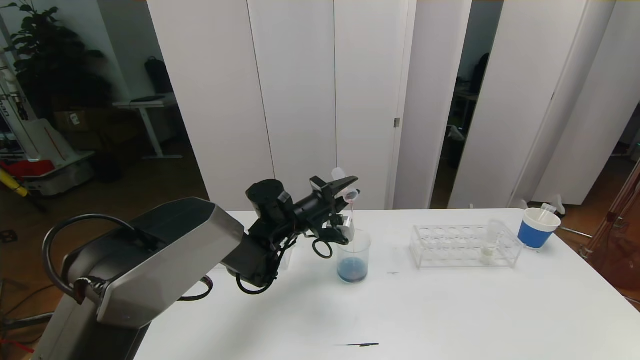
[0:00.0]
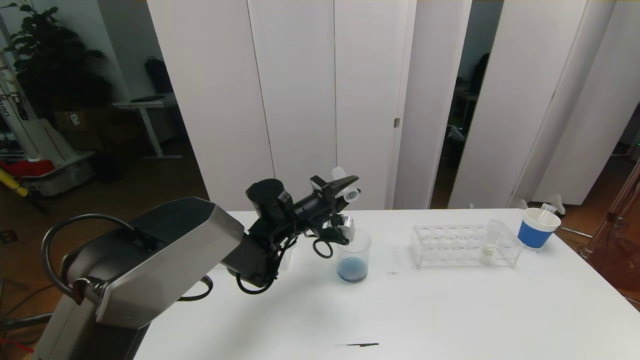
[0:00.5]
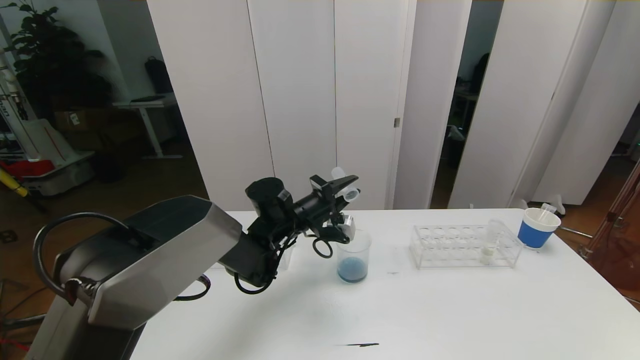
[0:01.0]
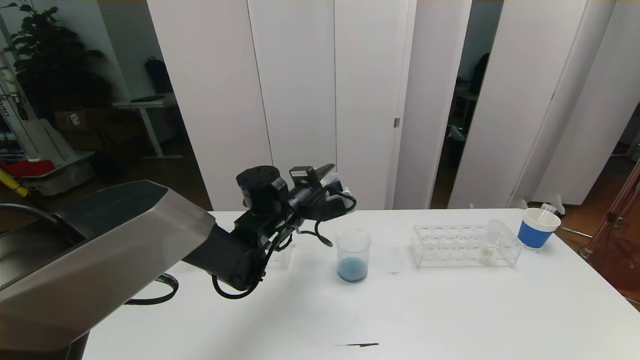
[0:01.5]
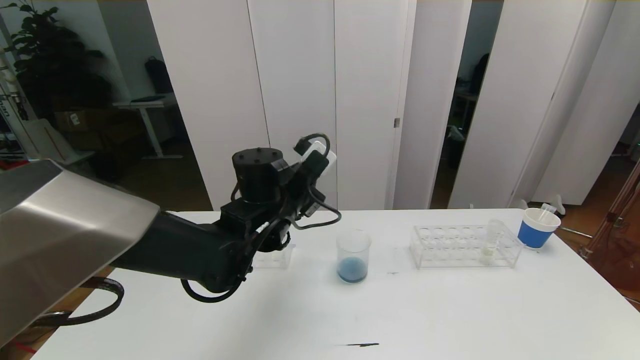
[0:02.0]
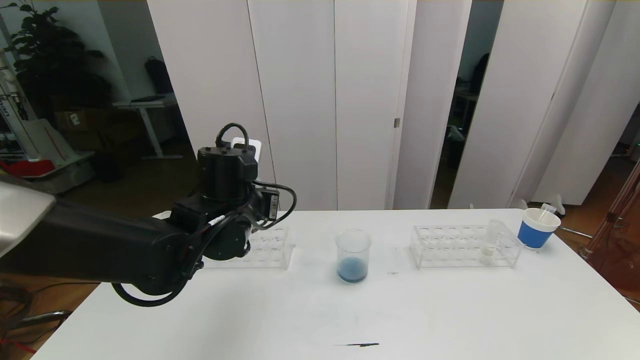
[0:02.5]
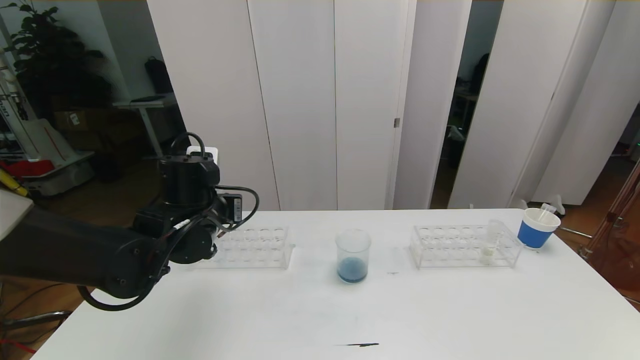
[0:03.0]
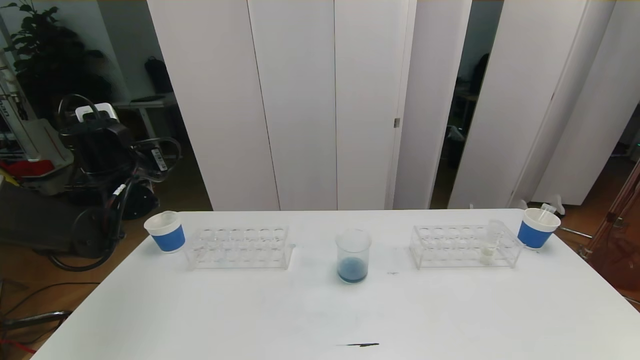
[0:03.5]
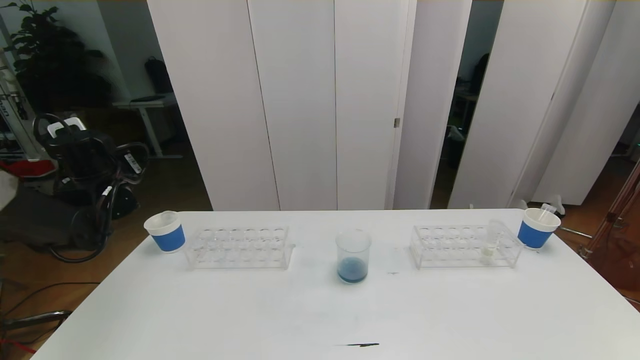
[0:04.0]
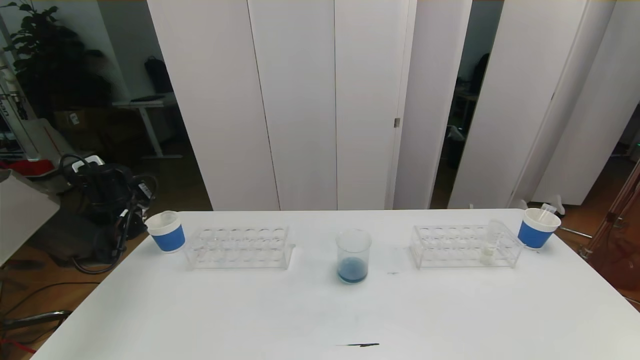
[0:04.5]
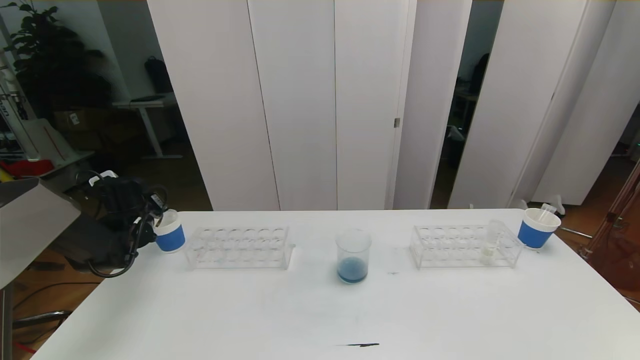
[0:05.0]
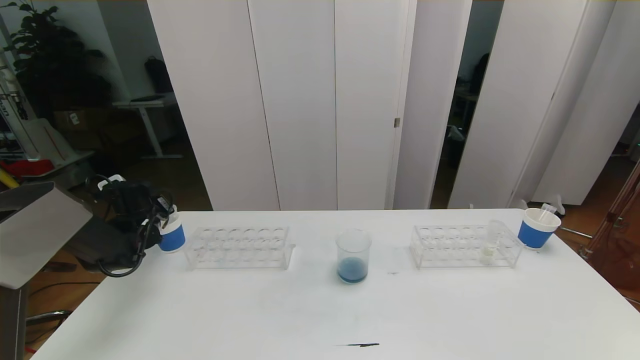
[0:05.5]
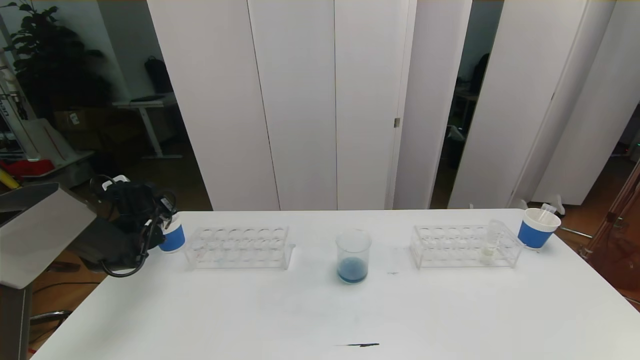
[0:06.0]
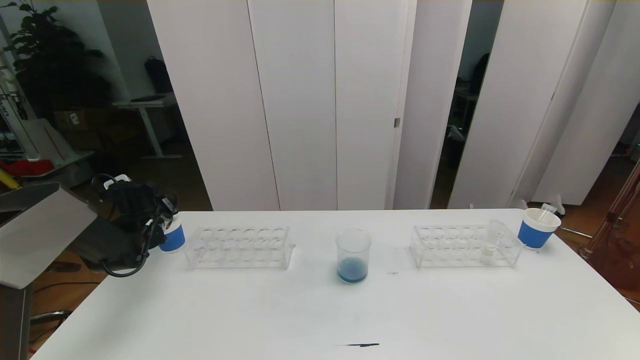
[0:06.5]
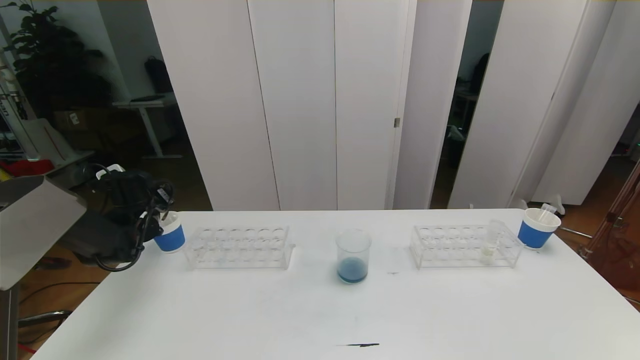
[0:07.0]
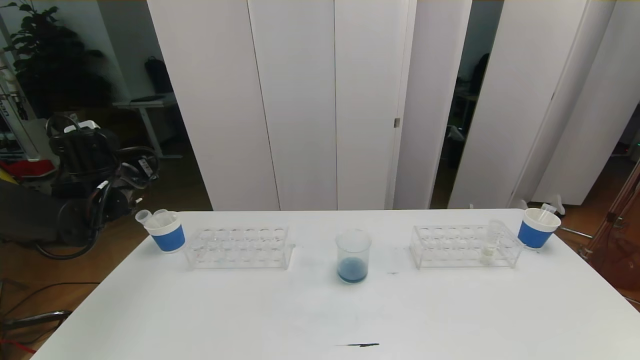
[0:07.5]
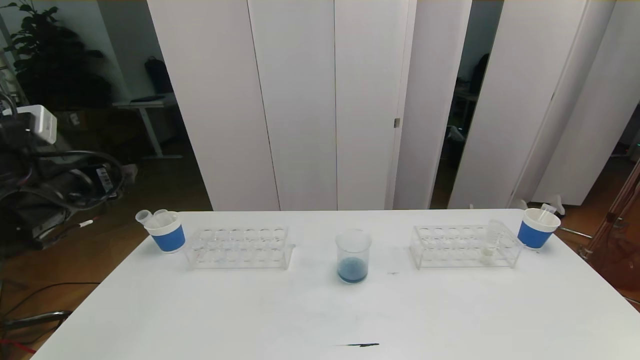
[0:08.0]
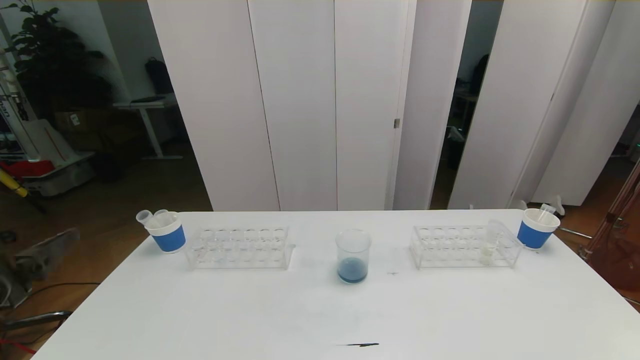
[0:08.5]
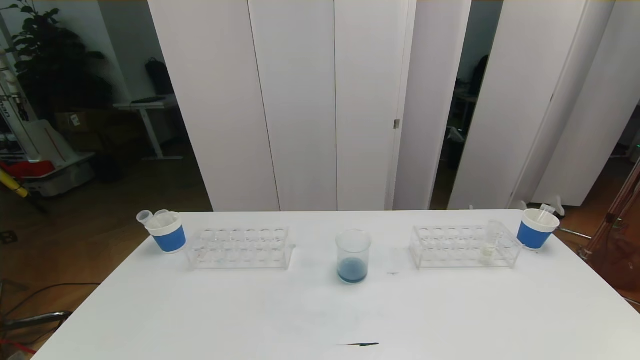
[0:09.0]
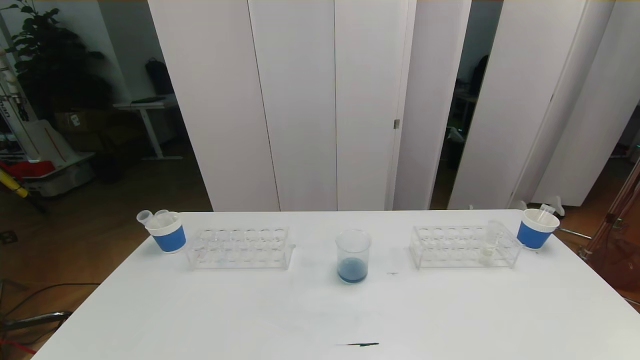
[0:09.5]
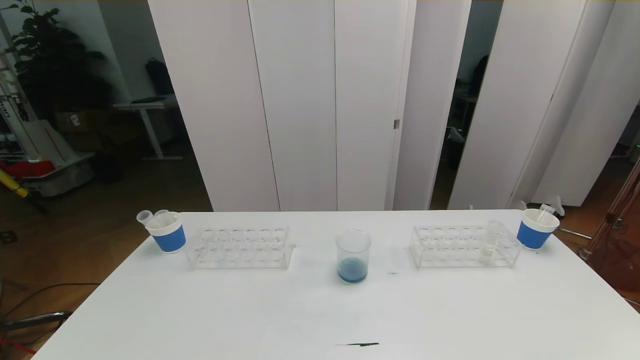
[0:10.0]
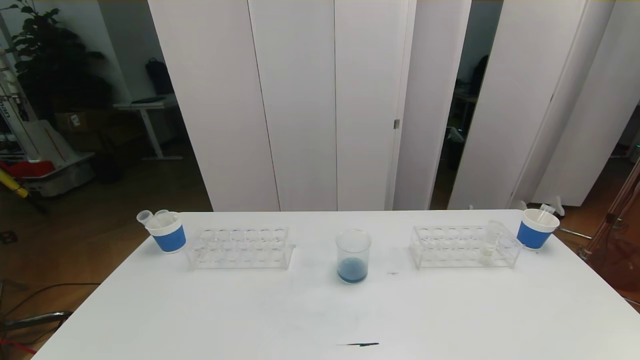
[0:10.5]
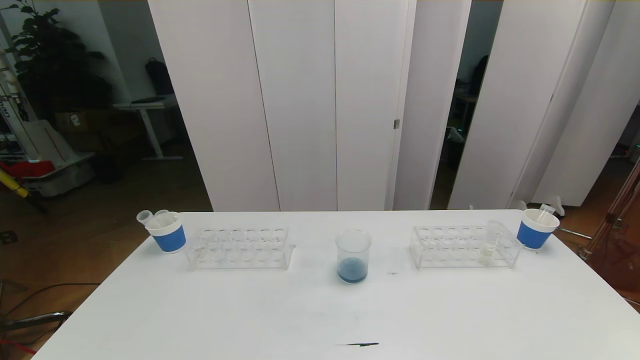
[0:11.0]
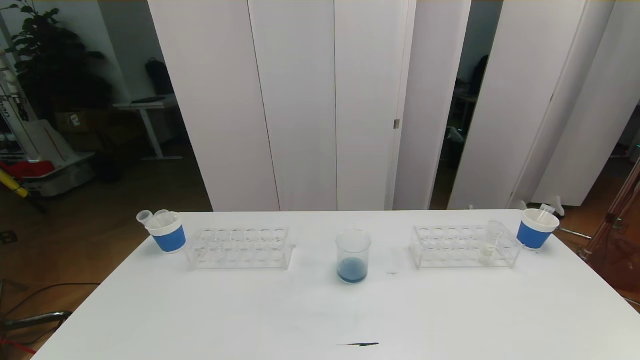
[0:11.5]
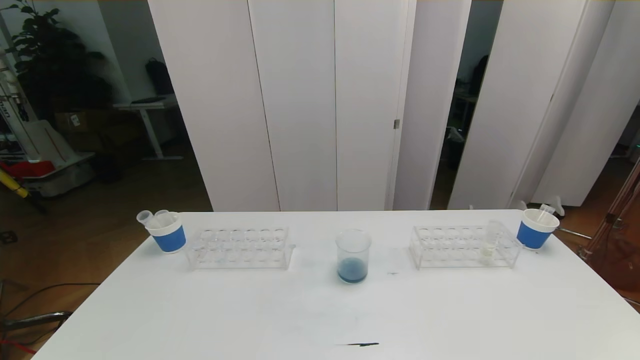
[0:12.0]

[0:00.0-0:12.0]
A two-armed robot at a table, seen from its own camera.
Task of the whole recording: pick up the test tube with red pigment the test tube with blue pigment and the test tube with white pigment by grippers and pour them into the beaker.
Step, 0:00.0 to 0:11.0: Pour the orange reagent into the graduated cylinder and place the test tube into the paper cup.
0:00.0 to 0:02.0: The left gripper travels upward and backward by approximately 10 cm.
0:02.0 to 0:04.0: The left gripper is displaced to the left by about 30 cm.
0:04.0 to 0:06.0: The left gripper heads downward and forward, covering some 15 cm.
0:06.0 to 0:08.0: The left gripper is displaced backward and upward by roughly 25 cm, and opens up.
0:08.0 to 0:10.0: The left gripper goes approximately 35 cm backward and downward.

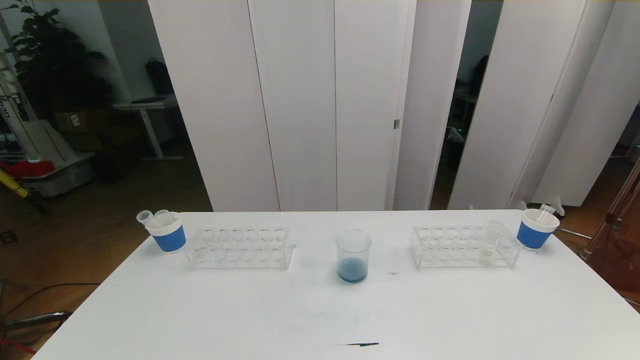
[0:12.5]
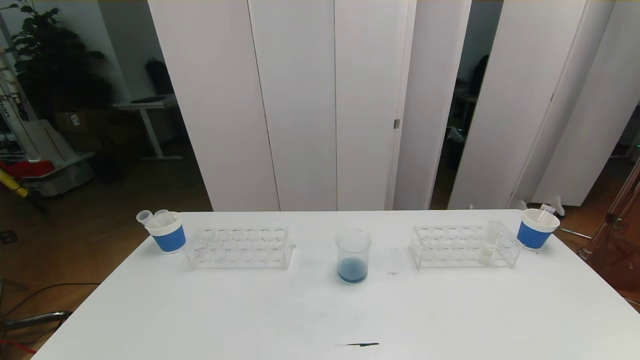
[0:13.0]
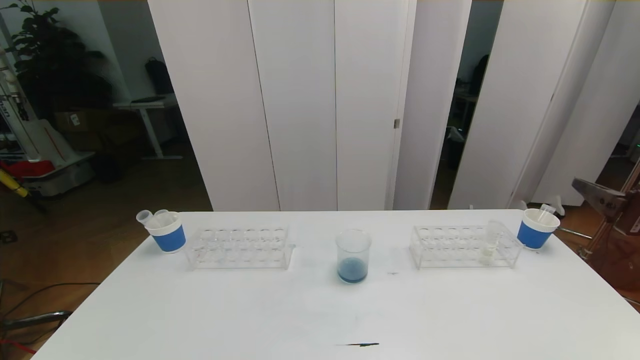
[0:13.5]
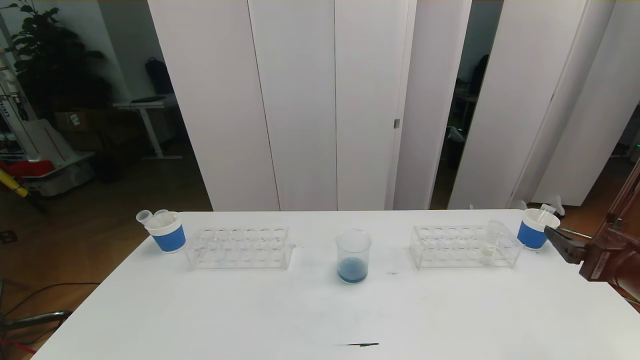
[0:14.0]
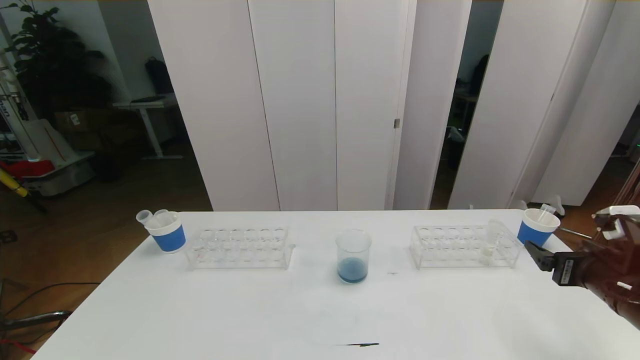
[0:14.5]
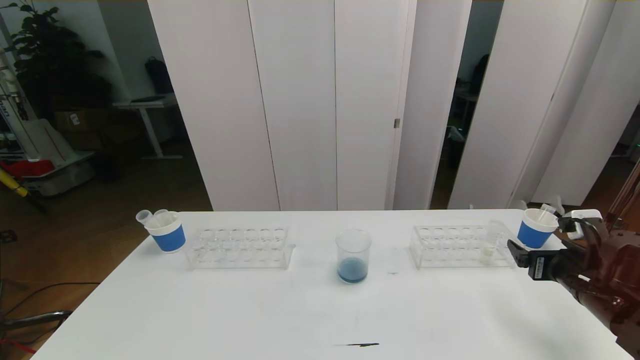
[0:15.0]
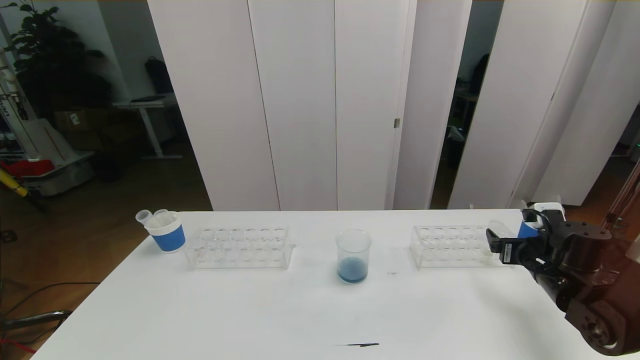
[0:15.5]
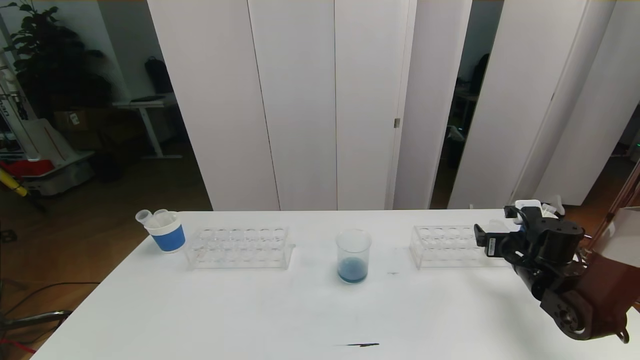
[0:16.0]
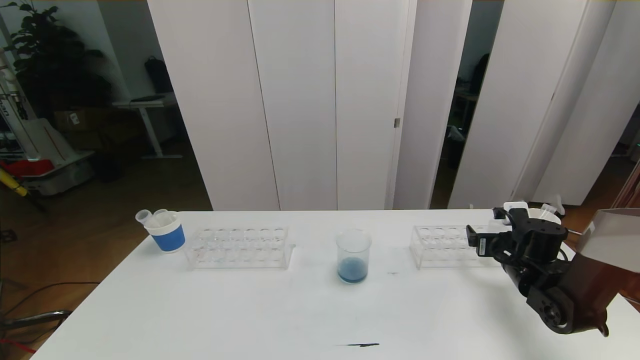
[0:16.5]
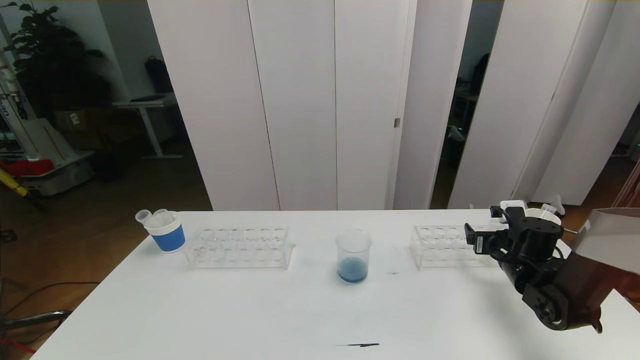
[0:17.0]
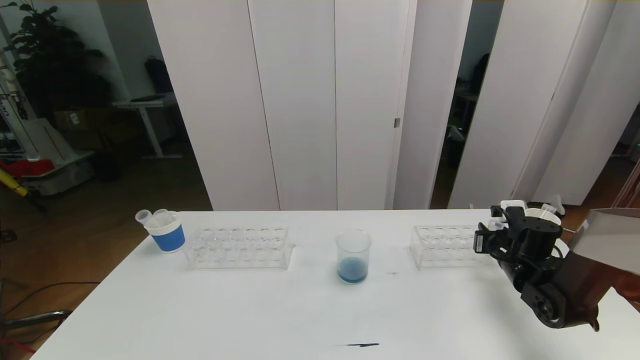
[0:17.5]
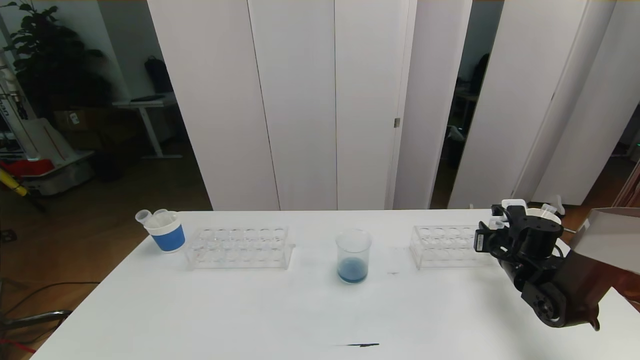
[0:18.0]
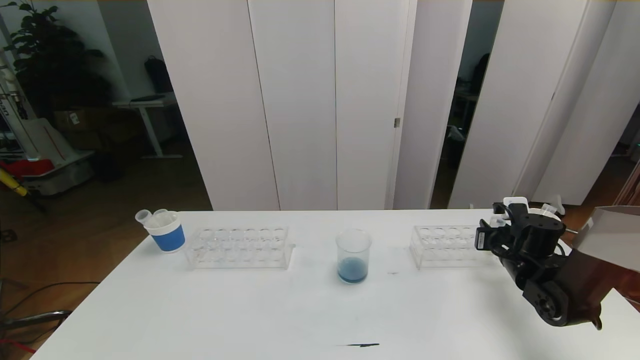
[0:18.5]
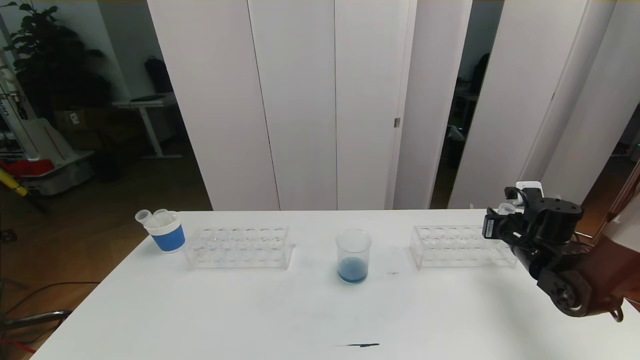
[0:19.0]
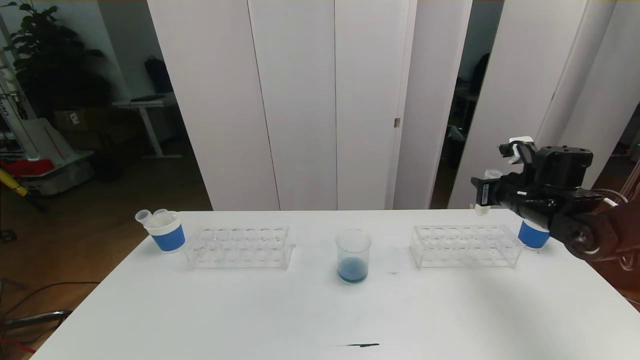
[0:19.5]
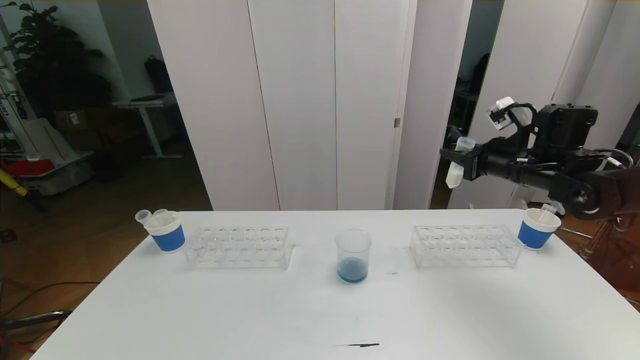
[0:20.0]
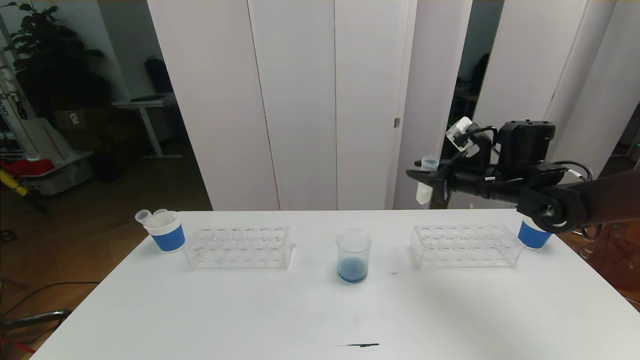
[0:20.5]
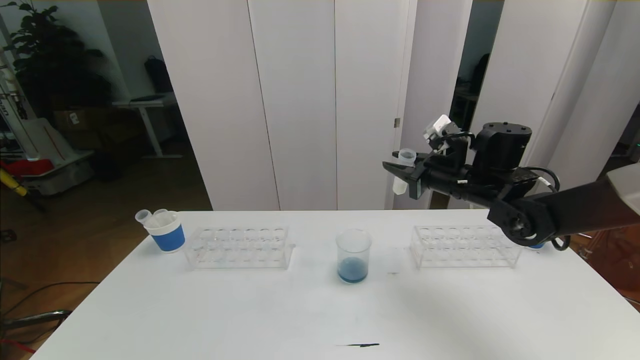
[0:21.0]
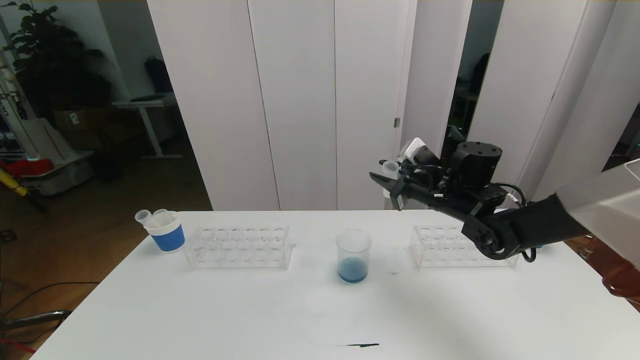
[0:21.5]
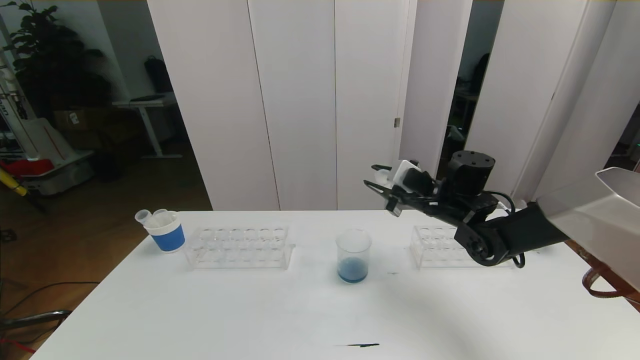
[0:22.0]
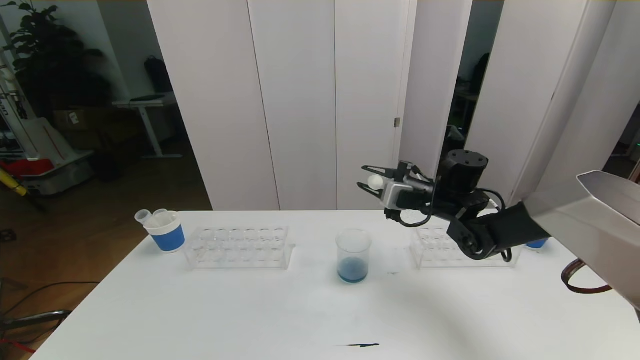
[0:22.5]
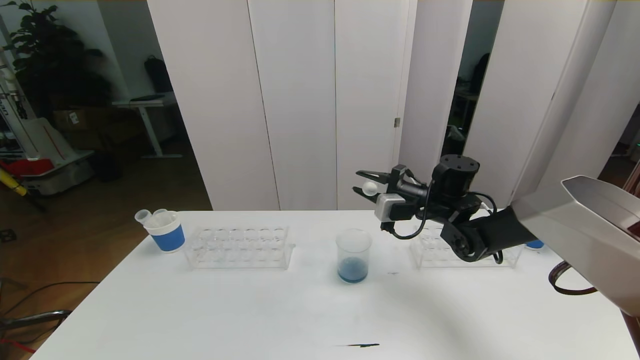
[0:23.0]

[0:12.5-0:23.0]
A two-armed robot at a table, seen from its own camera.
Task of the whole recording: pick up the test tube with red pigment the test tube with blue pigment and the test tube with white pigment by grippers and pour them into the beaker.
0:12.5 to 0:14.5: The right gripper travels forward and downward by approximately 25 cm.
0:14.5 to 0:16.5: The right gripper is displaced forward and downward by roughly 15 cm.
0:16.5 to 0:19.0: The right gripper closes.
0:19.0 to 0:21.0: The right gripper travels to the left and upward by approximately 15 cm.
0:21.0 to 0:23.0: The right gripper goes about 5 cm downward.
